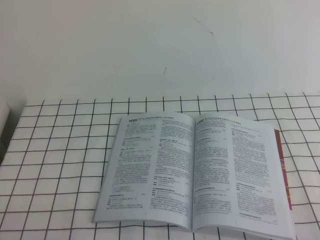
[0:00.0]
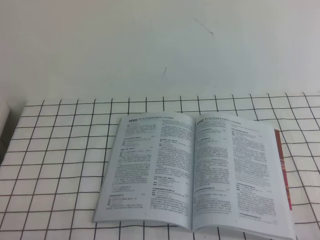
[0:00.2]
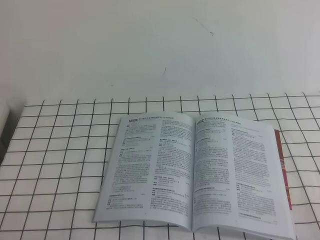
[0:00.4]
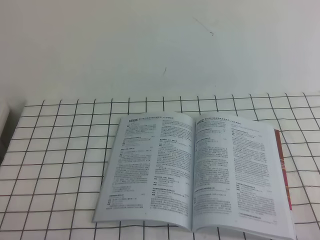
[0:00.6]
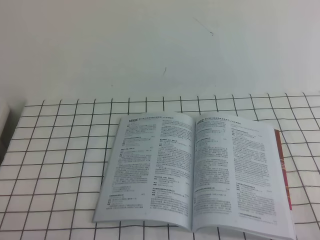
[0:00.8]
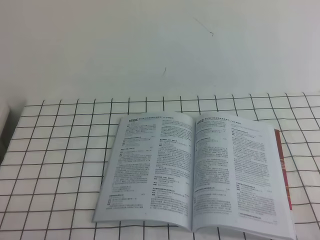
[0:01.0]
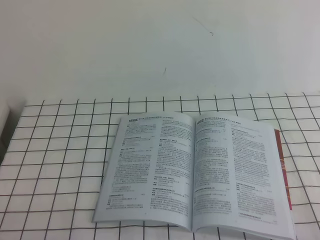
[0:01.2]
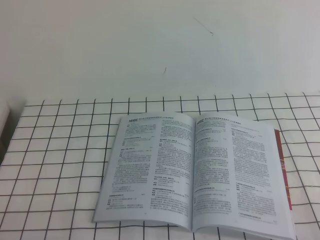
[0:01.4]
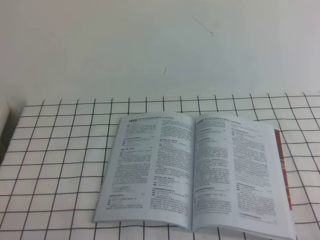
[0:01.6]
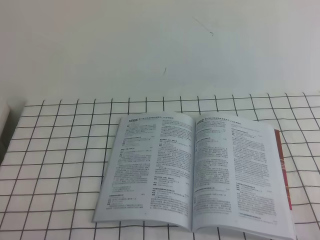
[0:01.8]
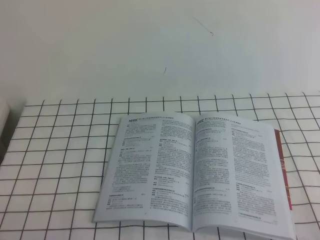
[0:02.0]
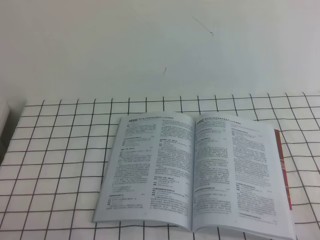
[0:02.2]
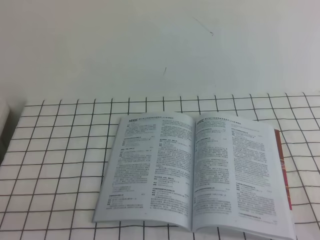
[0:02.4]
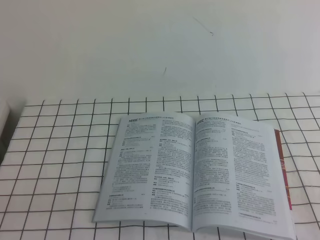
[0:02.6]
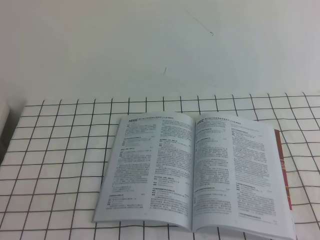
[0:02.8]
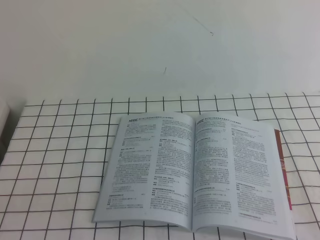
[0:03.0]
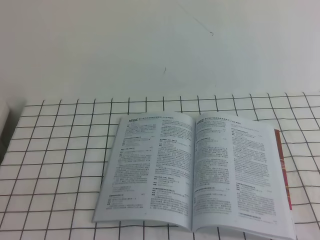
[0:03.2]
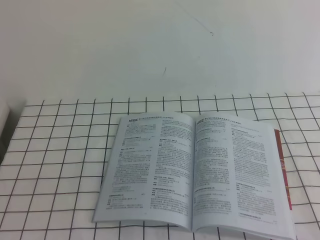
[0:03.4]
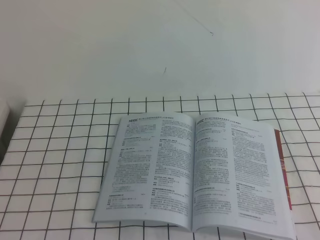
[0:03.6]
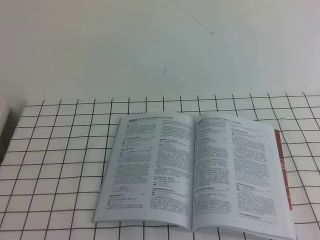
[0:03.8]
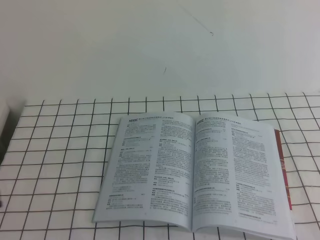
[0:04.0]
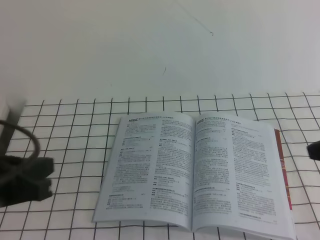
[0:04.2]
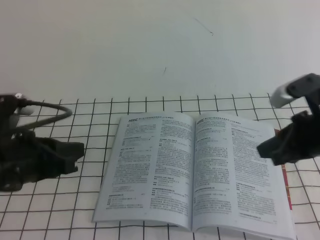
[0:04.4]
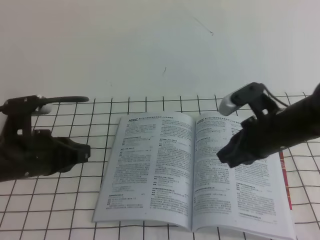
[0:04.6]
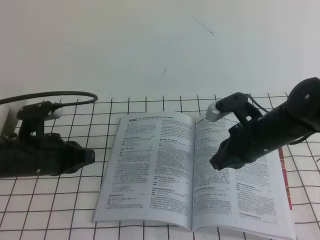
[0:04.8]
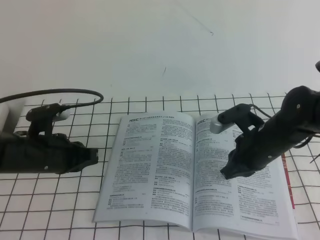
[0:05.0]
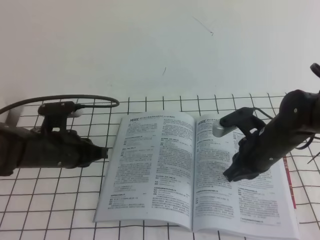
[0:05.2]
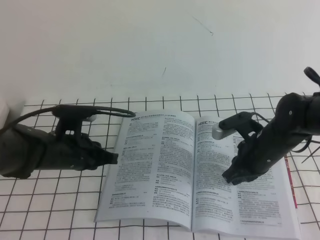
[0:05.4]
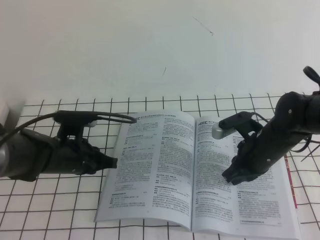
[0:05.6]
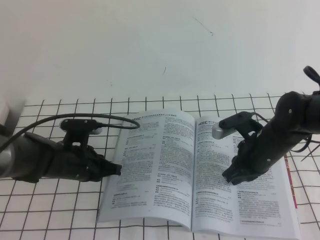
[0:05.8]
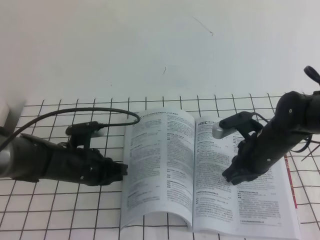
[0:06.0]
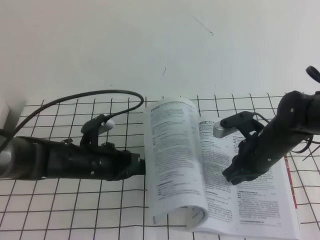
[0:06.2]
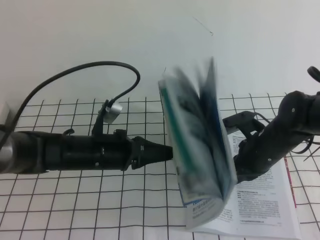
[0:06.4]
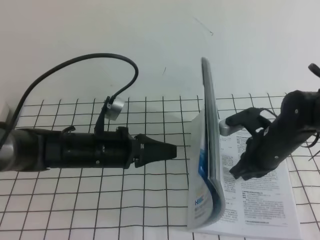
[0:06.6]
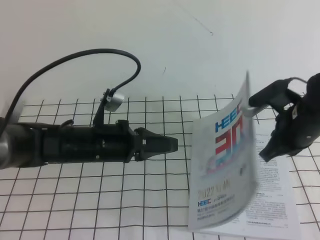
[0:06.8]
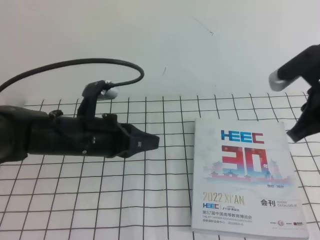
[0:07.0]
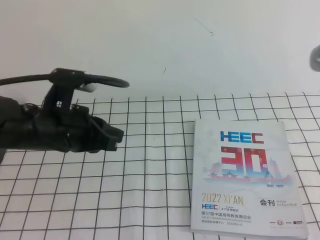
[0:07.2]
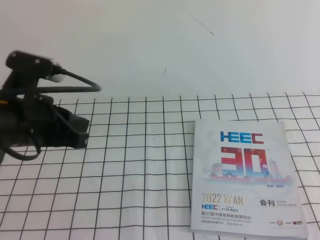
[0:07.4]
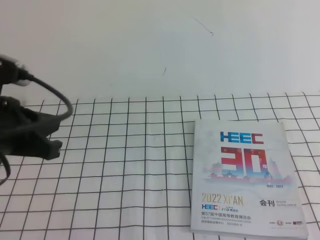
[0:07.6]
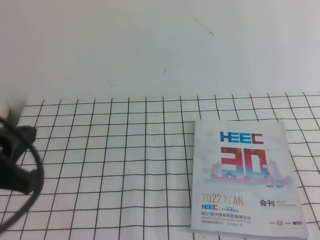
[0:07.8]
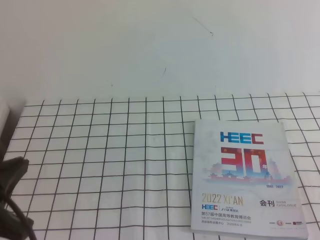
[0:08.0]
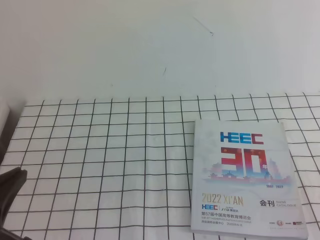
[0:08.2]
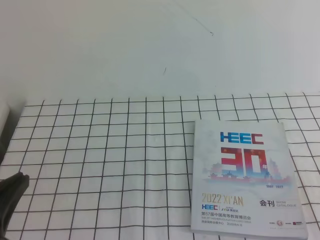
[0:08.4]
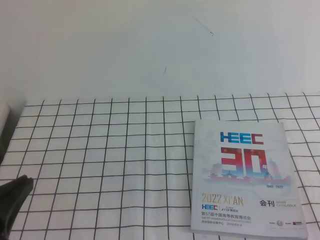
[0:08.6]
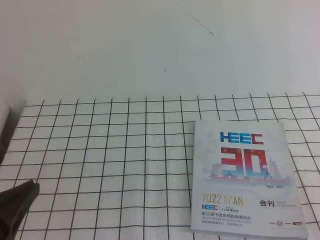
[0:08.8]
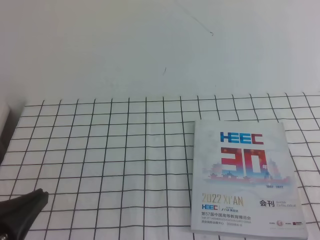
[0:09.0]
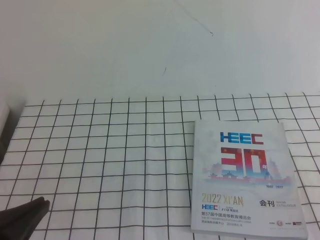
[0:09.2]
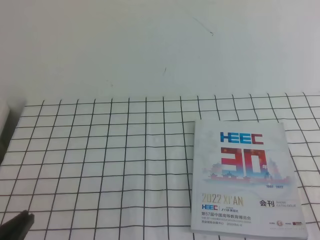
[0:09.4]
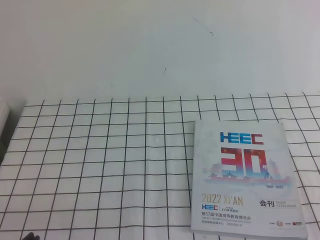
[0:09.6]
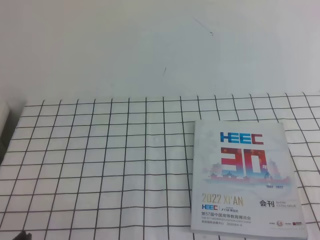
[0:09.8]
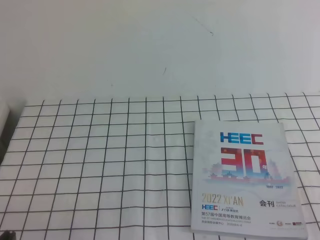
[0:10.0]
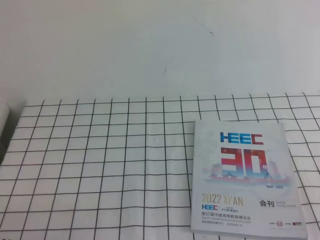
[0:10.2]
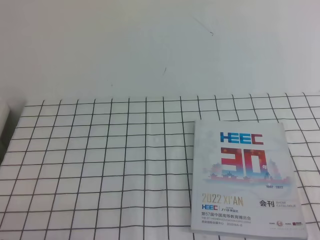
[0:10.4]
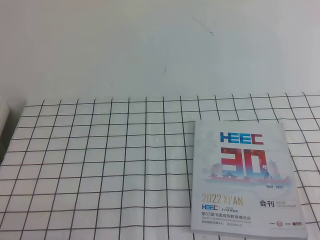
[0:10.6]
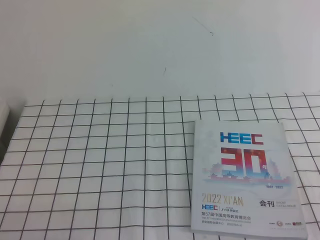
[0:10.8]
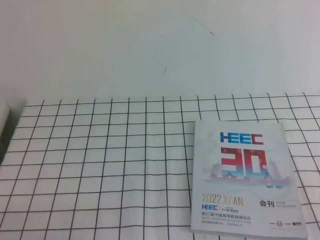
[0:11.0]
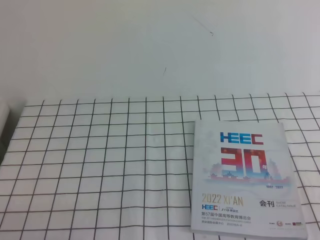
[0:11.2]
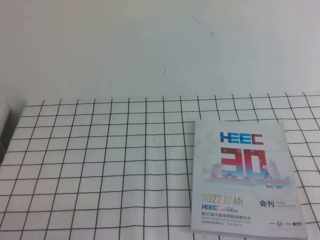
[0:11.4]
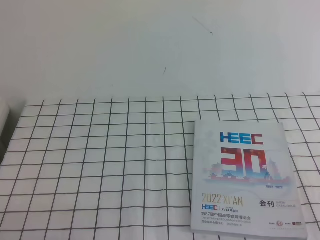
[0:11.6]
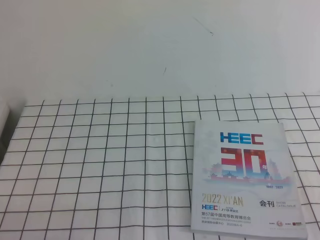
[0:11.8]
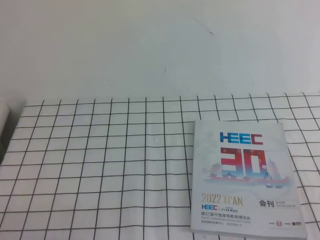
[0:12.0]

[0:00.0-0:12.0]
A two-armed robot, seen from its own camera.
Task of the whole recording: on the white tablecloth, hold the book with one hand and close it with the other.
0:00.0 to 0:01.6: The two grippers keep their place.
0:03.0 to 0:04.4: The grippers both shift forward by about 20 cm.
0:04.4 to 0:06.0: The right gripper shifts roughly 15 cm downward, to the left and forward; the left gripper travels downward and forward by roughly 20 cm.
0:06.0 to 0:07.6: The right gripper goes about 35 cm upward, backward and to the right; the left gripper is displaced upward and backward by roughly 25 cm.
0:07.6 to 0:09.0: The grippers both shift backward and downward by some 15 cm.
0:09.0 to 0:10.4: The left gripper shifts roughly 10 cm downward.
0:10.4 to 0:12.0: Both grippers stay about where they are.
